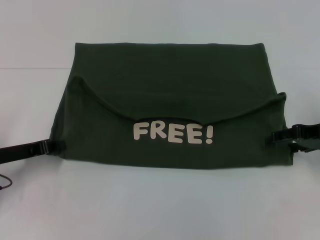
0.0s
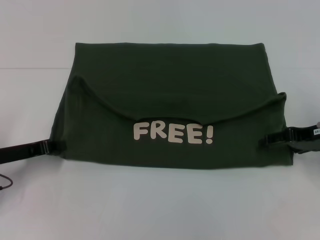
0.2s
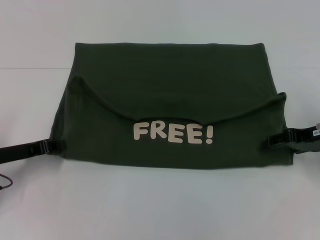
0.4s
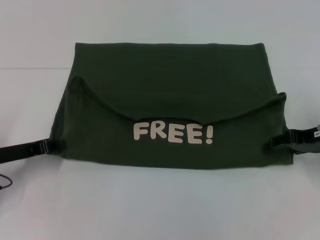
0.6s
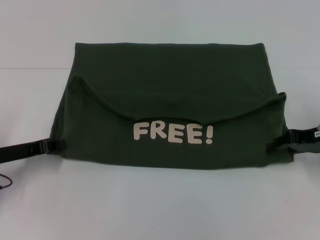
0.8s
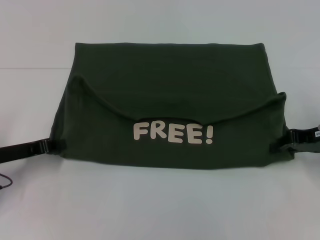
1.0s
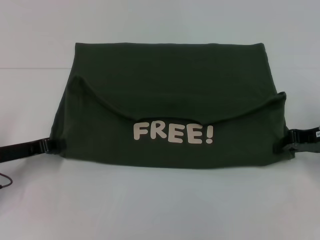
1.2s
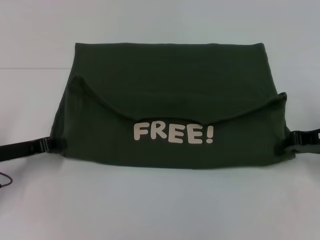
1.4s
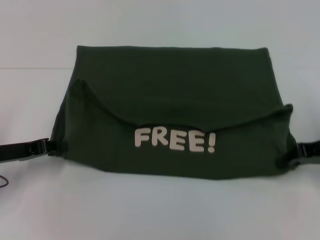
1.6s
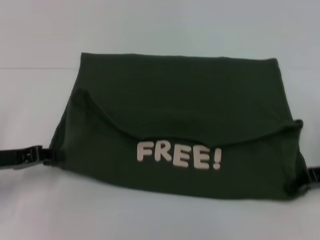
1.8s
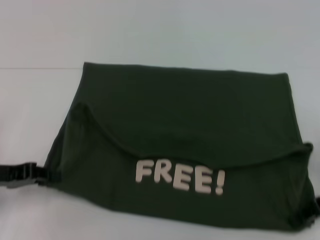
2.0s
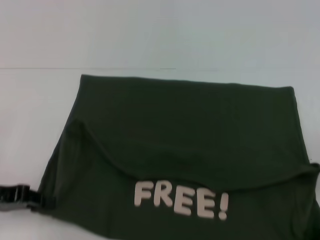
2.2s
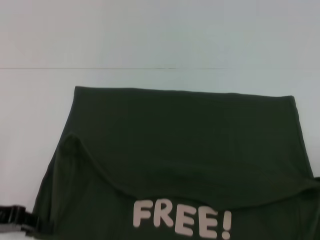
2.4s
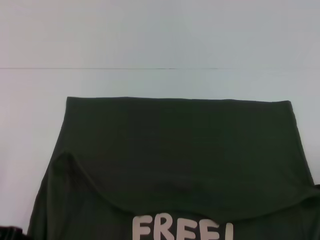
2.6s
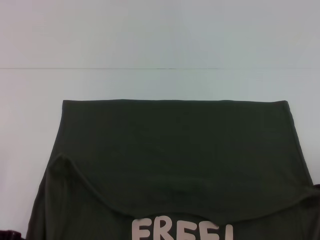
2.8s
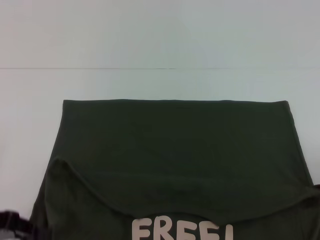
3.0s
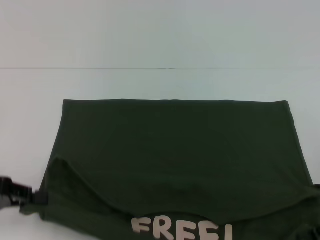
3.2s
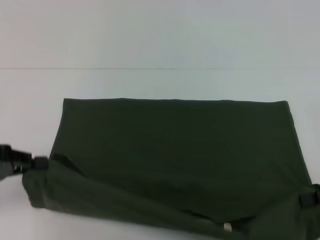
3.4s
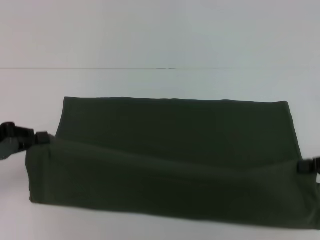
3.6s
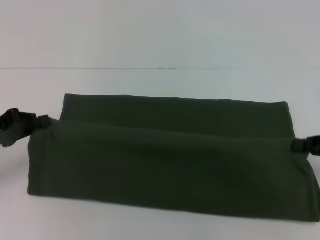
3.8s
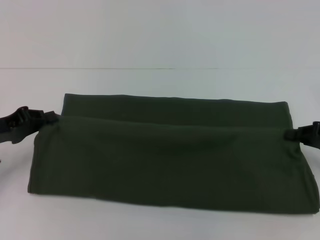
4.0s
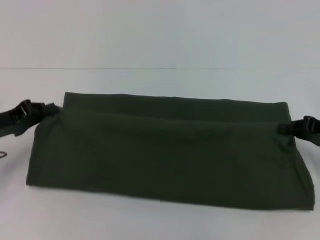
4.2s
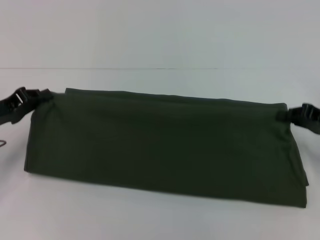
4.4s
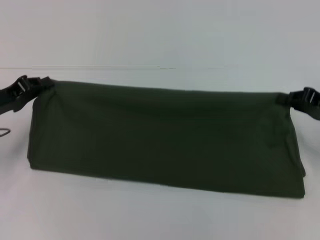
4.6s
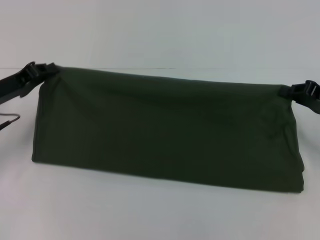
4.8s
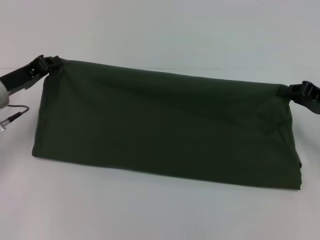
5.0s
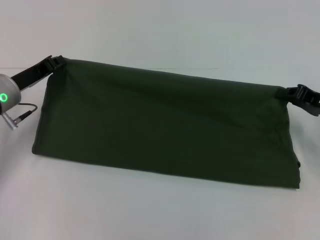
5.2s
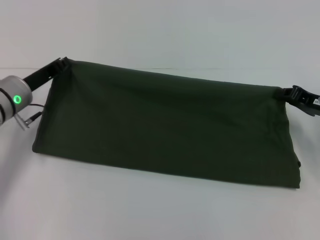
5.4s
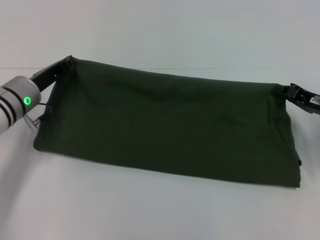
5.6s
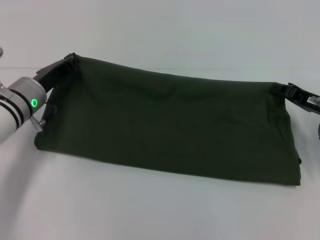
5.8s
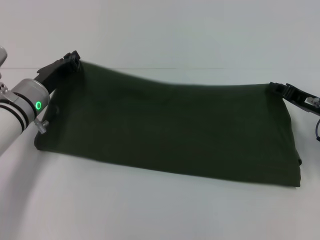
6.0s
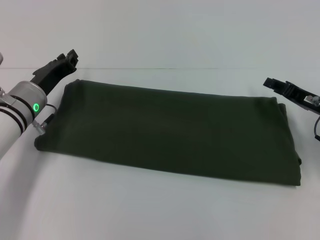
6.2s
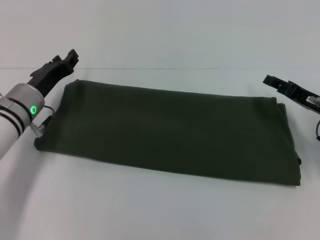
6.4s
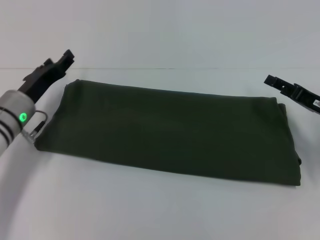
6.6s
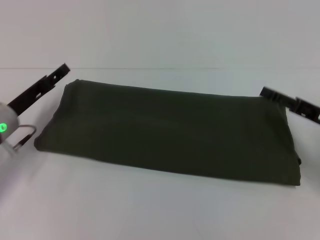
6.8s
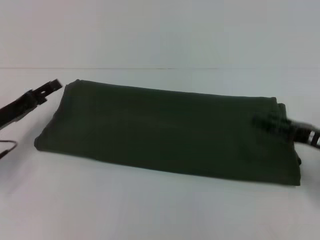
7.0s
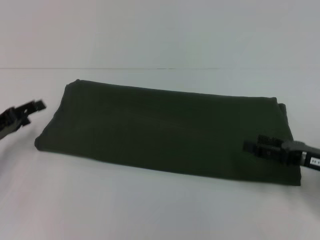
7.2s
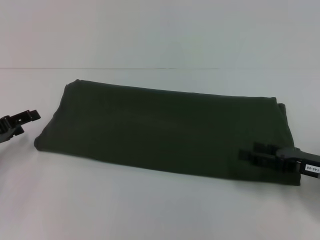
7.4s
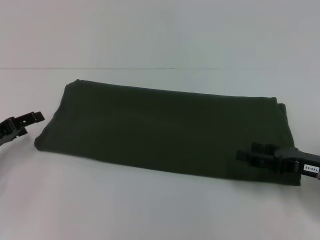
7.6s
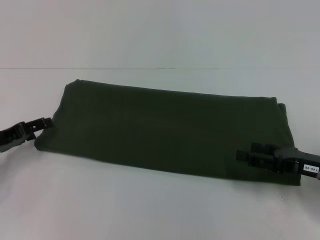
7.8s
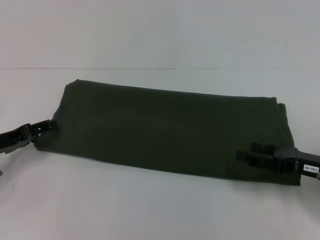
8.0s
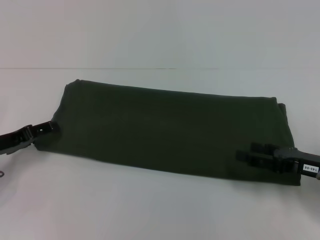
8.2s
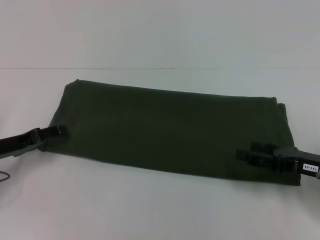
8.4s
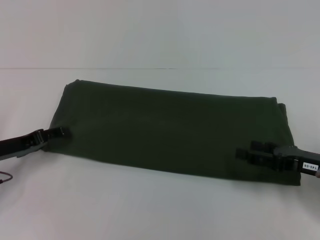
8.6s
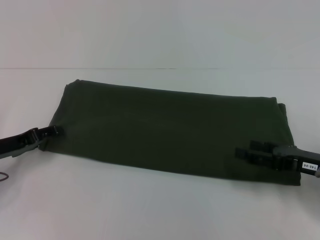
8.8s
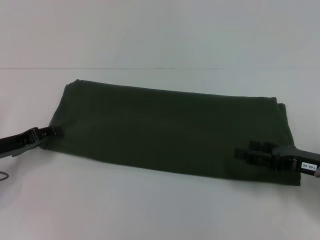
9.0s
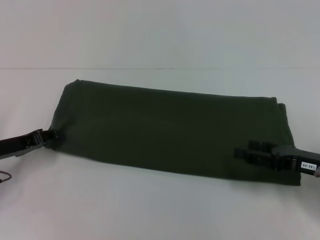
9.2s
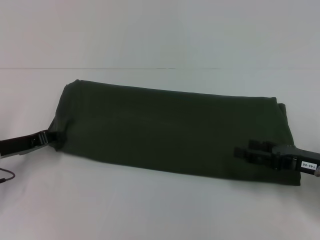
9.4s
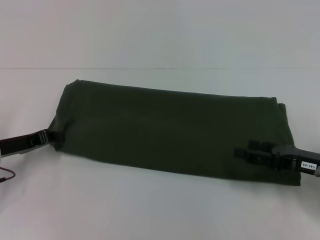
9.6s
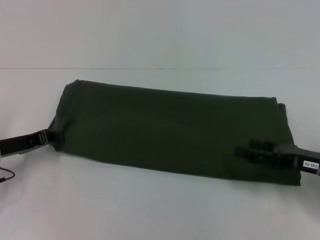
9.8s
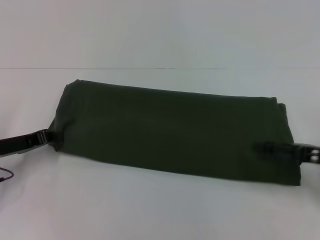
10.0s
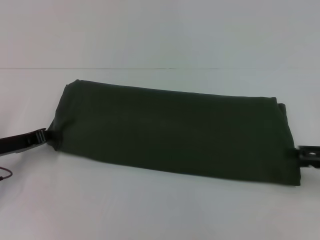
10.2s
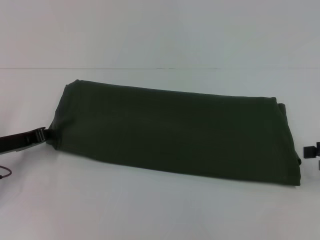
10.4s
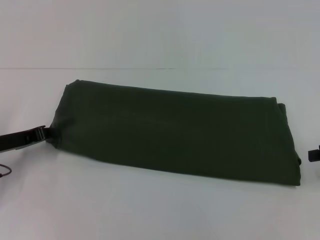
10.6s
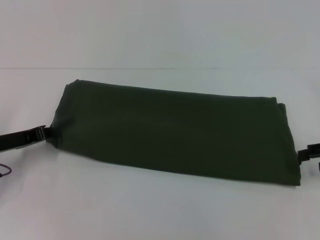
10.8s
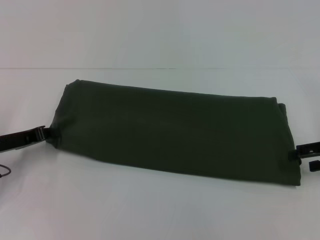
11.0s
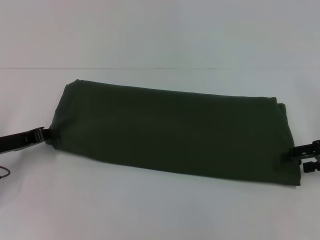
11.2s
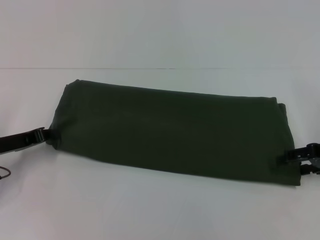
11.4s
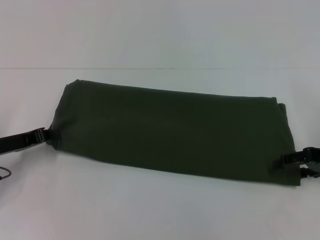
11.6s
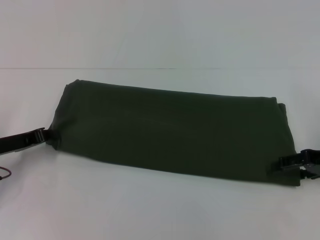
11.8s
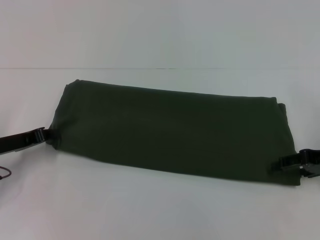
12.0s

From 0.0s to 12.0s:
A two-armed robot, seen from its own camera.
Step, from 0.0s to 2.6s: Pull the clothes with your left hand.
Step, from 0.0s to 2.6s: Pull the clothes with your right hand.
Step, from 2.8s to 6.4s: Fold the clothes with your left hand.
Step, from 2.8s to 6.4s: Fold the clothes with your right hand.
From 0.0s to 1.6s: The right gripper closes.
From 1.6s to 3.0s: The grippers both shift backward by about 10 cm.
From 3.0s to 4.4s: The grippers both shift forward by roughly 10 cm.
From 4.4s to 6.0s: The left gripper heads to the right and forward, covering roughly 10 cm. Meanwhile the right gripper moves roughly 5 cm.
From 6.0s to 7.6s: The right gripper goes some 10 cm backward, and opens its fingers. The left gripper moves to the left and backward, roughly 15 cm, and opens up.
From 7.6s to 9.0s: The grippers stay close to where they were, moving slightly.
From 9.0s to 10.4s: The right gripper moves to the right and upward, approximately 10 cm; the left gripper closes.
From 10.4s to 12.0s: The right gripper moves to the left, some 5 cm.

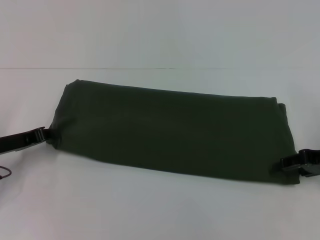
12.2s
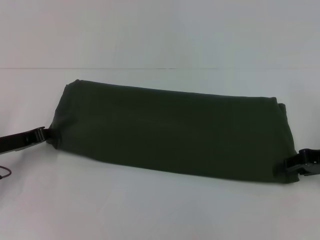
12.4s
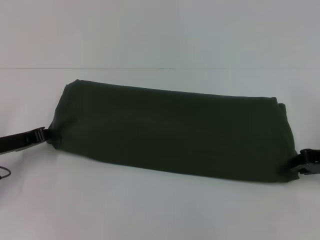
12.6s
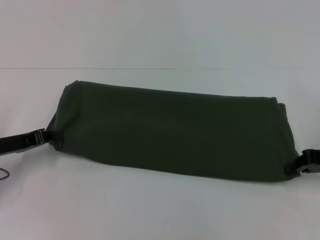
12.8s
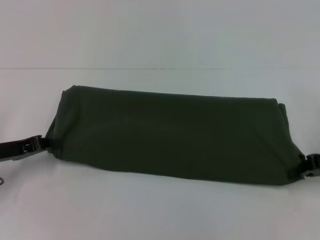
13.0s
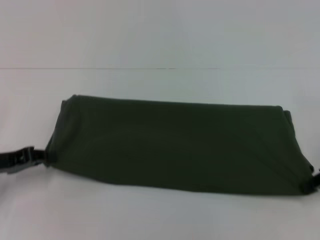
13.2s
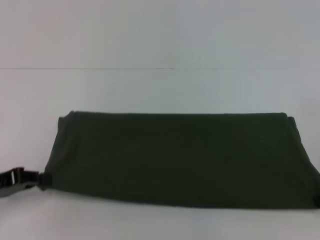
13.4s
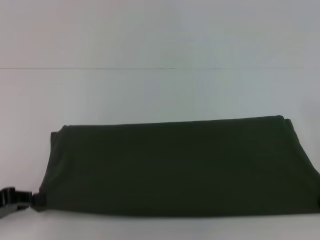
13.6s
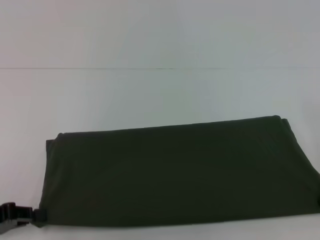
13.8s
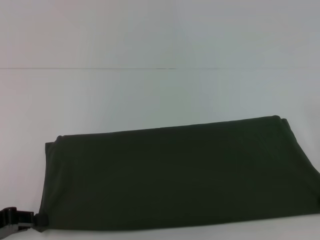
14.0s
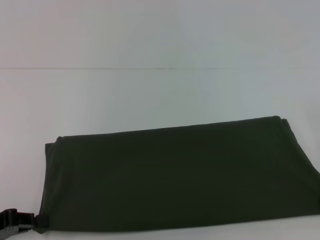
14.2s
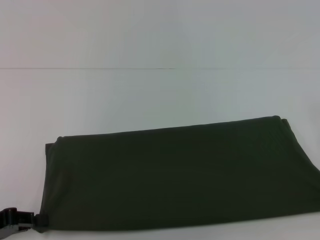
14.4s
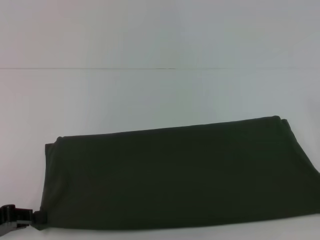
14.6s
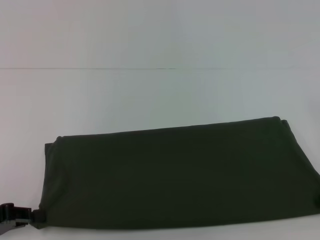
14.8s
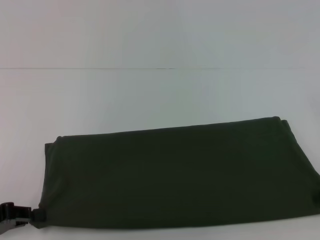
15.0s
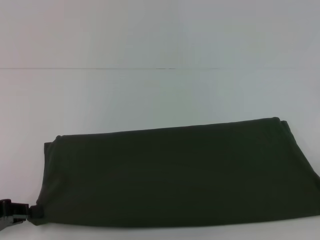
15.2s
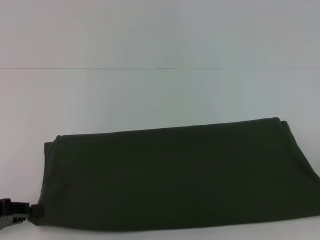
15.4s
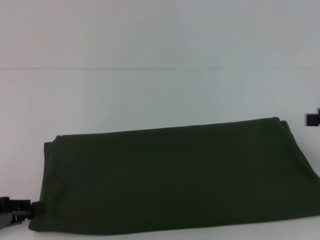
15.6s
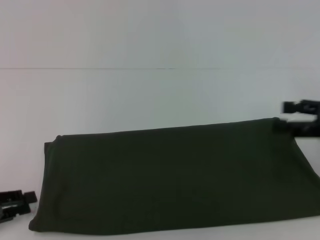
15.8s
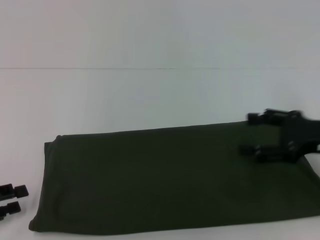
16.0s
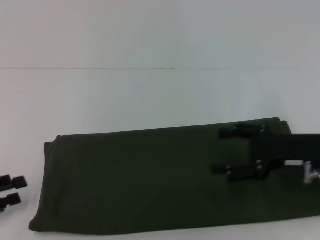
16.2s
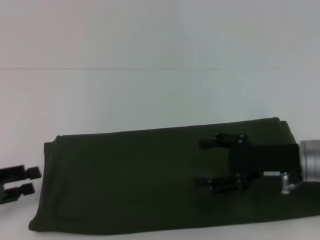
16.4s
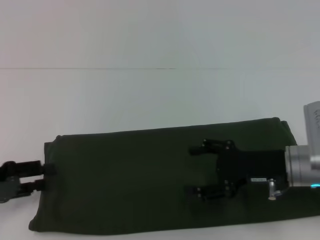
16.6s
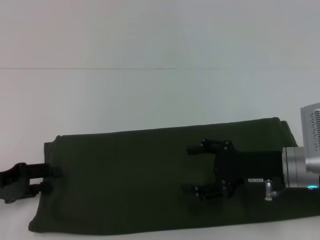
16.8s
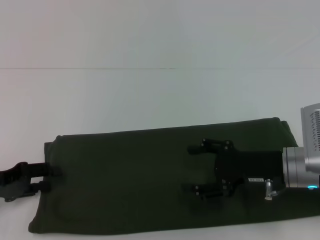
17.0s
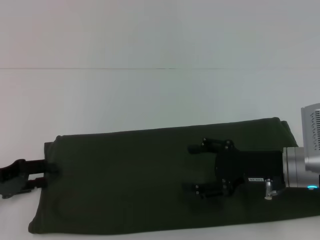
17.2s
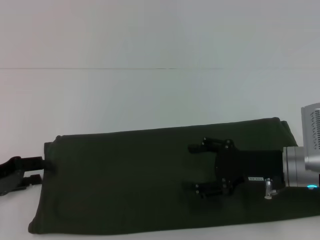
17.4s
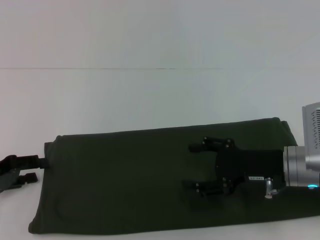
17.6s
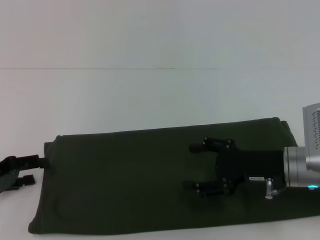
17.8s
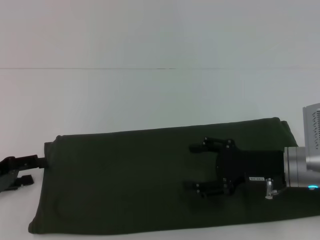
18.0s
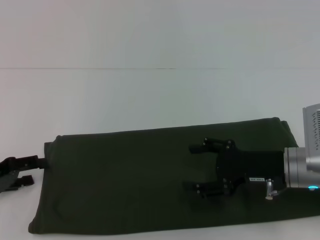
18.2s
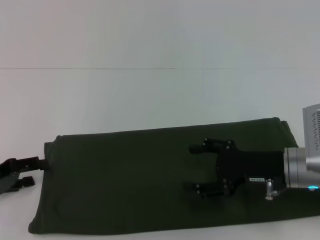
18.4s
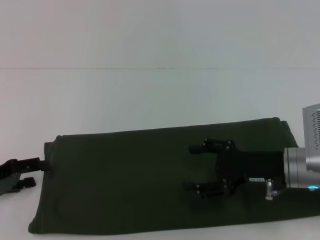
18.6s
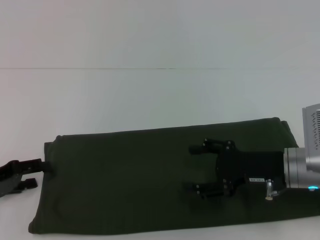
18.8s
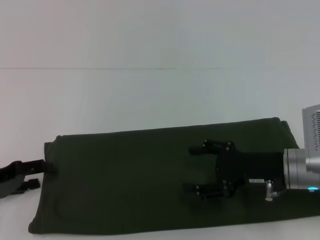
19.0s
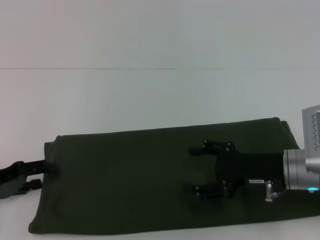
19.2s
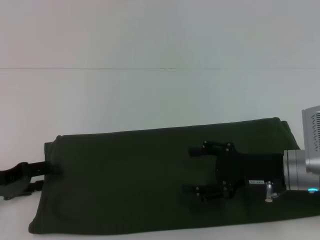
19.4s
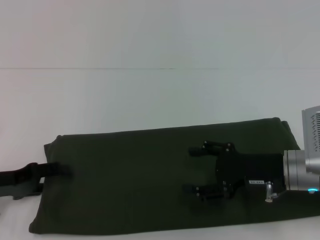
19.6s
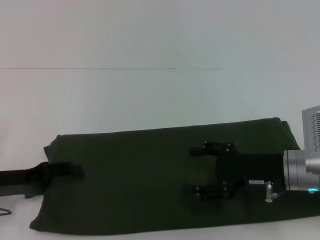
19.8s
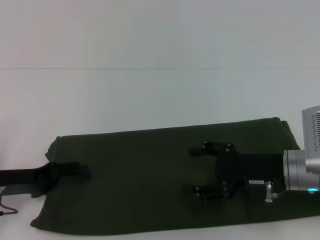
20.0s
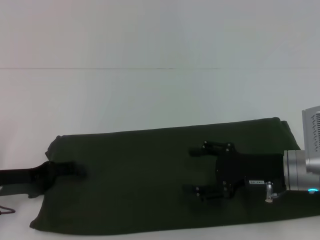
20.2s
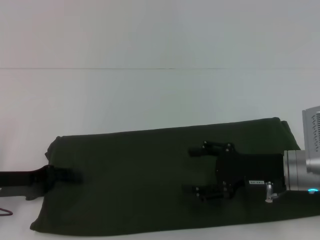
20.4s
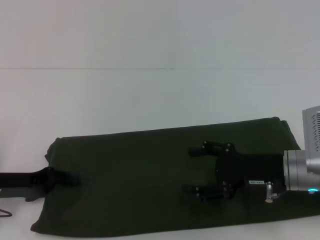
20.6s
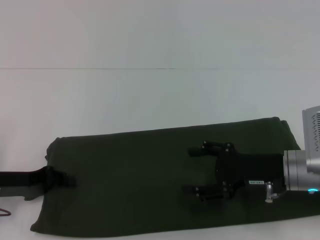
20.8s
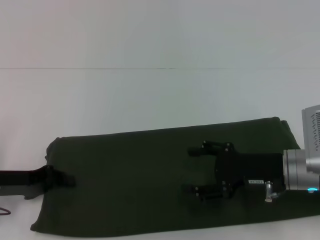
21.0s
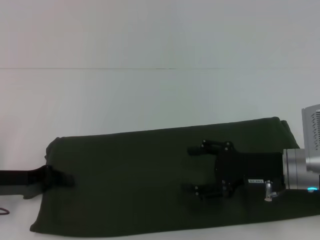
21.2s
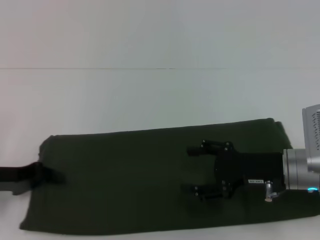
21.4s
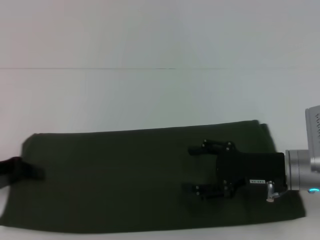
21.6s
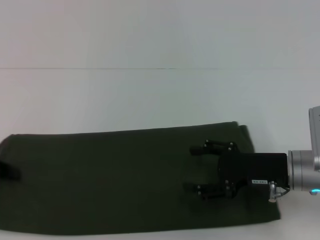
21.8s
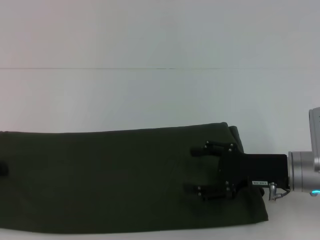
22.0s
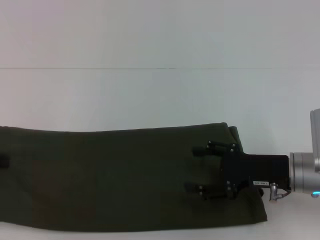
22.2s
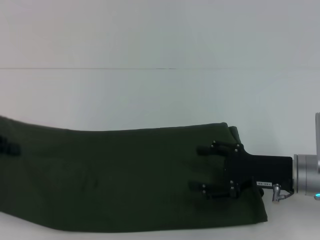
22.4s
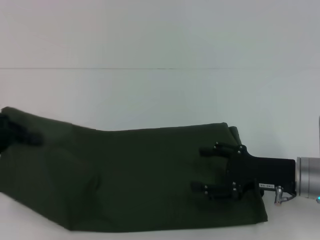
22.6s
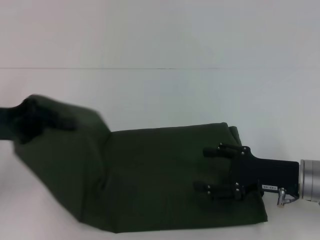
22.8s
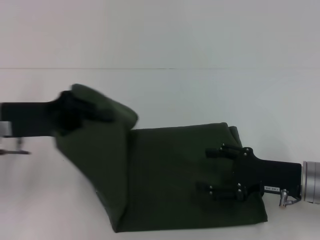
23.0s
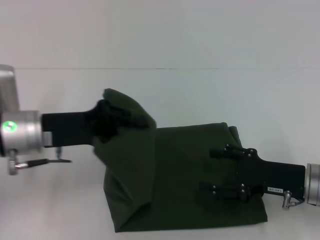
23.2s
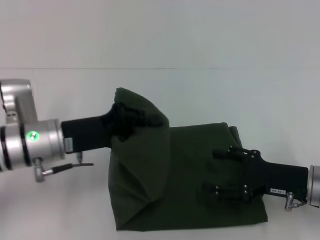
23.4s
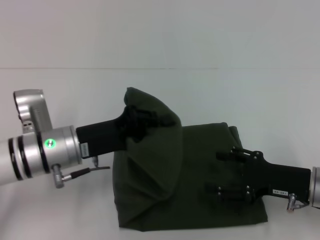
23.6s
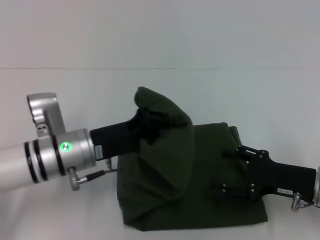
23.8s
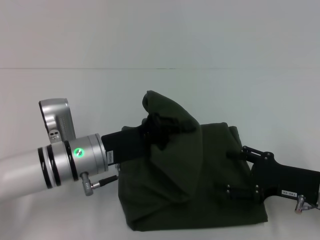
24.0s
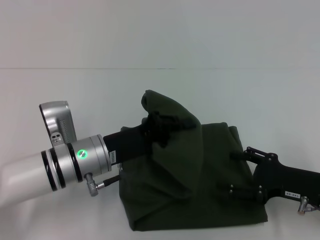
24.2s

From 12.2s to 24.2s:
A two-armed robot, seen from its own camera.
Step, from 12.2s to 15.8s: Pull the clothes with your left hand.
Step, from 12.2s to 15.8s: Pull the clothes with your right hand.
From 12.2s to 13.8s: The left gripper is displaced backward by some 10 cm, while the right gripper closes up.
From 13.8s to 15.2s: The right gripper ends up some 5 cm from where it was, and opens its fingers.
From 15.2s to 16.6s: The left gripper opens its fingers, while the right gripper goes approximately 20 cm to the left and downward, and opens.
From 16.6s to 19.8s: There are only small adjustments of the grippers.
From 19.8s to 21.2s: The left gripper closes up.
From 21.2s to 22.6s: The left gripper goes some 10 cm upward.
From 22.6s to 24.2s: The left gripper heads to the right and downward, covering some 25 cm.
